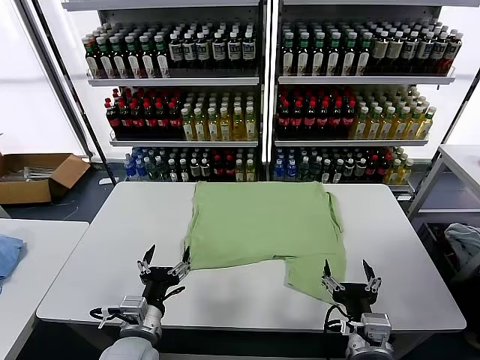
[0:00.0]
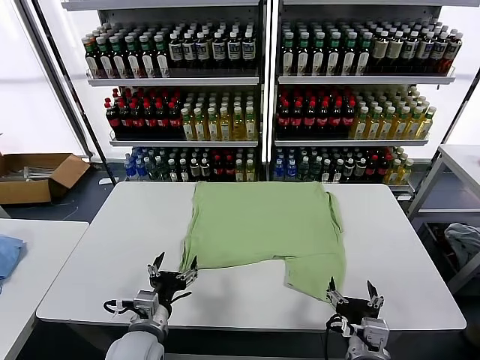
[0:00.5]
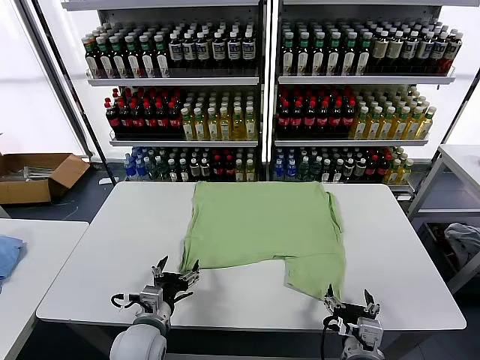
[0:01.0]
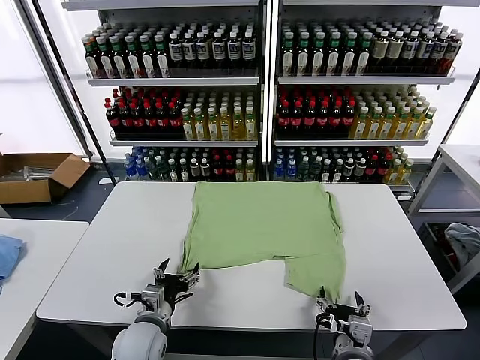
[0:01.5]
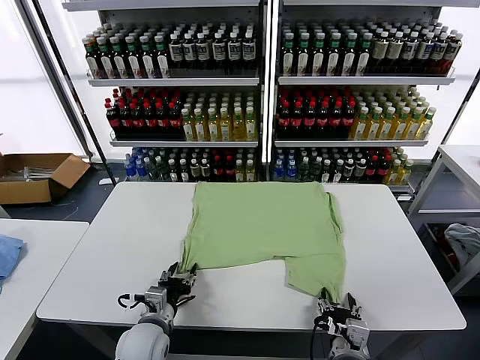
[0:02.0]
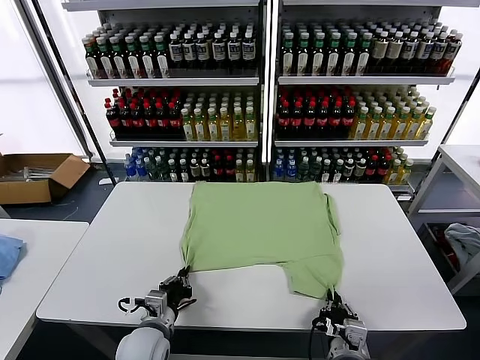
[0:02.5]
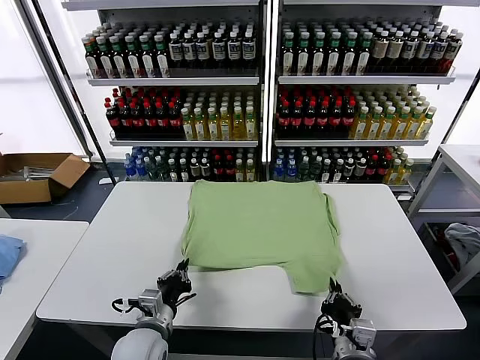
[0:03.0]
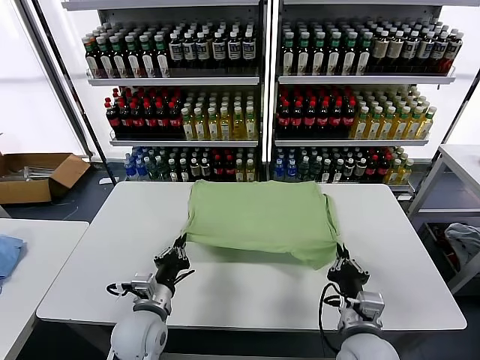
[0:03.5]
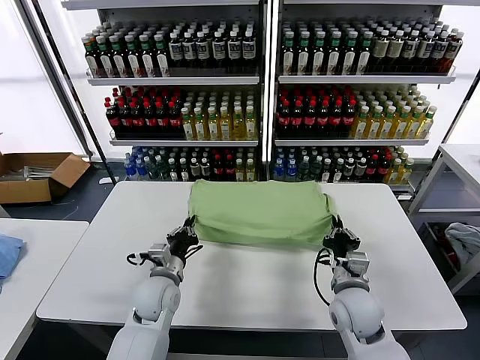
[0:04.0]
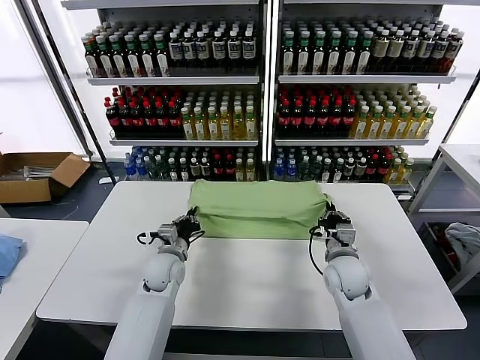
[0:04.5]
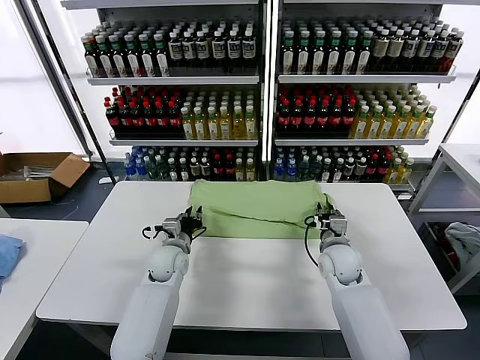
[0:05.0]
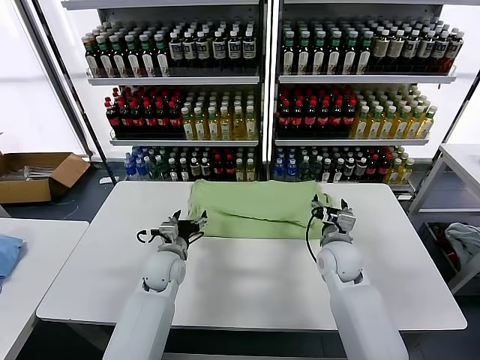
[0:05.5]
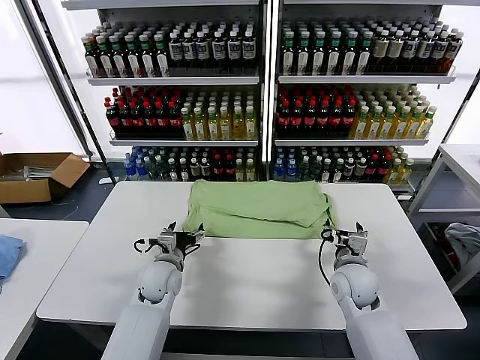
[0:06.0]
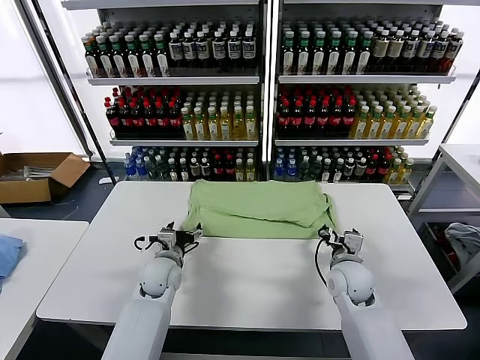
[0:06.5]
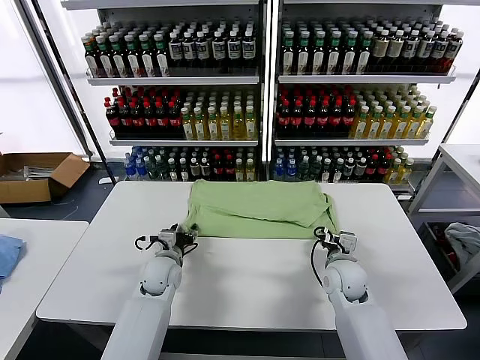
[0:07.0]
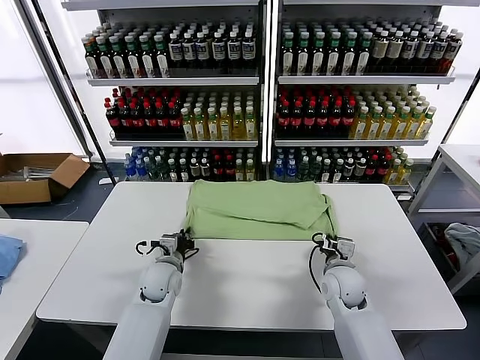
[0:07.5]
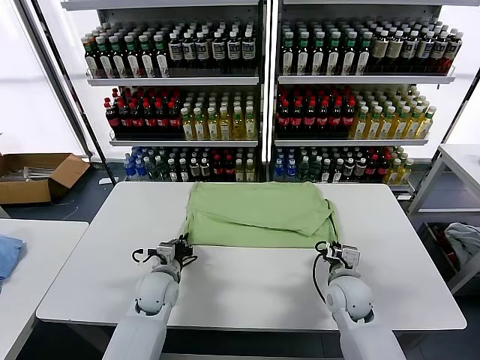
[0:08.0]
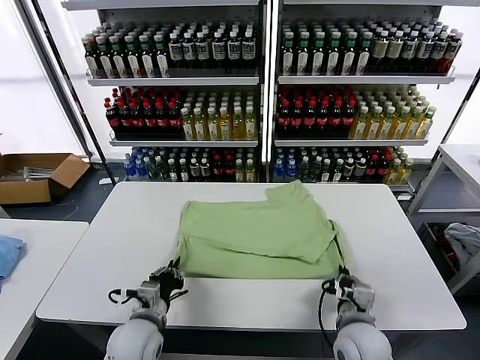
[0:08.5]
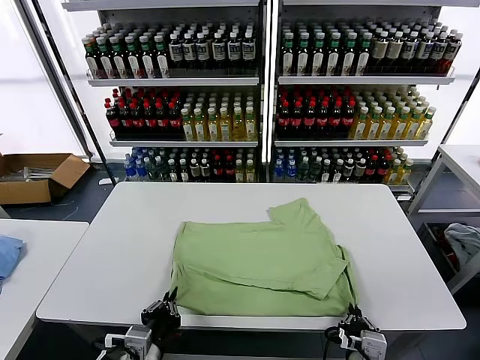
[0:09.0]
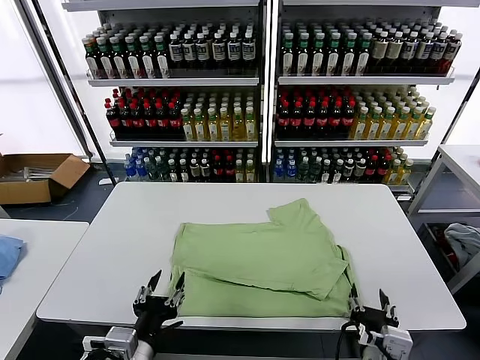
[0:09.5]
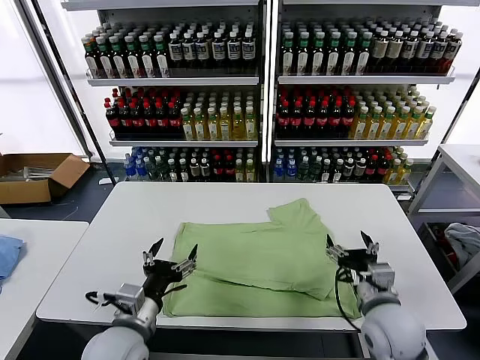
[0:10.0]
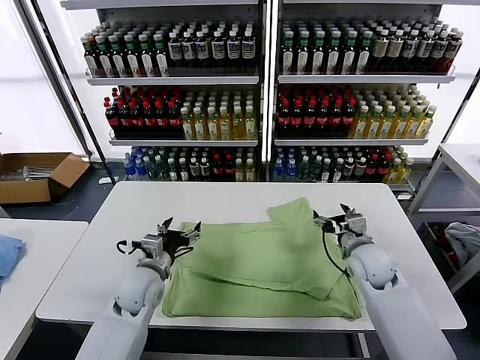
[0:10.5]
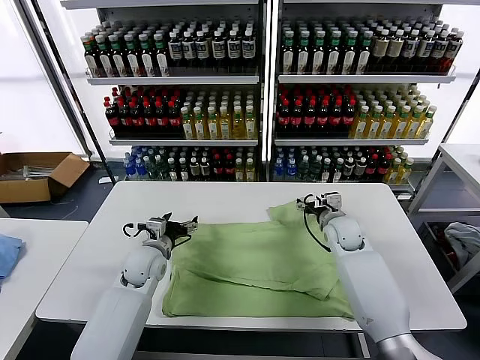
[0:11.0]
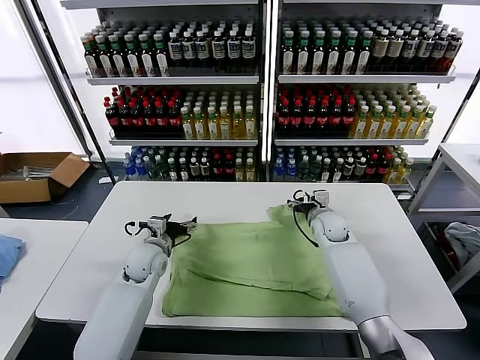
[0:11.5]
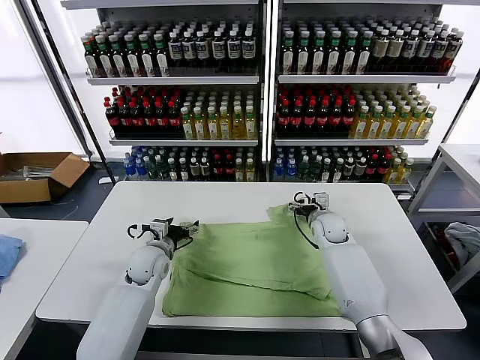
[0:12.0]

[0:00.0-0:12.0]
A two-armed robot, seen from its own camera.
Task of the whole recording: fold and organize the clothes.
Step, 0:00.0 to 0:02.5: use both grippers simultaneously to clamp the lower edge of the clothing fabric.
Step, 0:03.0 to 0:05.0: use both grippers to drag the lower edge of the fabric forward and fold it over the upper edge.
Step, 0:05.5 to 0:09.0: Drag the clothes downward with both gripper.
0:02.0 to 0:04.0: Both grippers move forward, approximately 15 cm. The right gripper closes, while the left gripper closes up.
0:04.0 to 0:06.0: The left gripper opens its fingers, while the right gripper travels forward and back again, about 10 cm each way, and opens up.
0:06.0 to 0:08.0: The left gripper closes up, while the right gripper moves backward, about 5 cm, and closes its fingers.
0:08.0 to 0:10.0: The left gripper is displaced backward and upward by about 15 cm, and opens up, while the right gripper shifts some 5 cm upward, moves about 20 cm backward and comes back, and opens up.
0:10.0 to 0:12.0: The grippers both shift forward by about 20 cm.

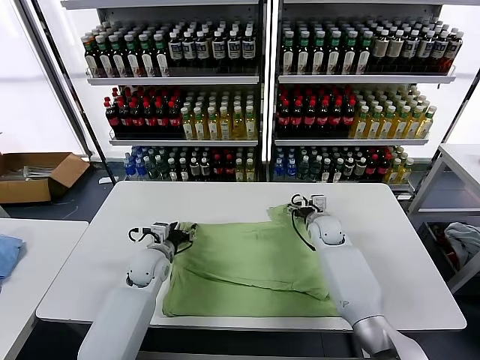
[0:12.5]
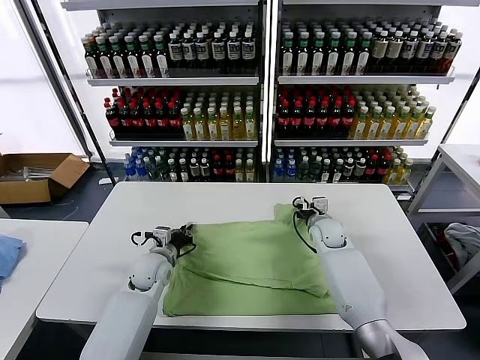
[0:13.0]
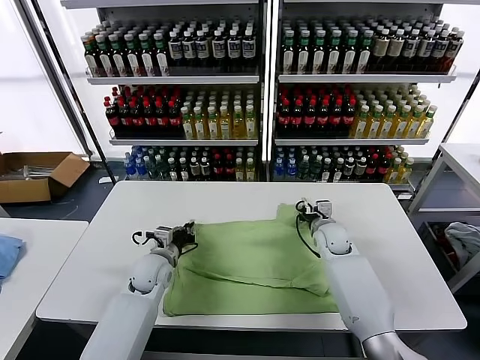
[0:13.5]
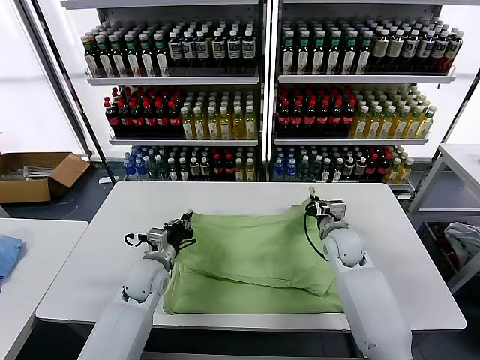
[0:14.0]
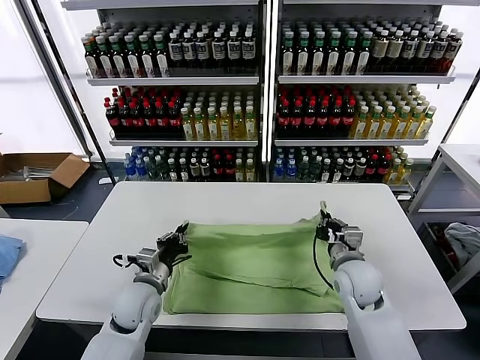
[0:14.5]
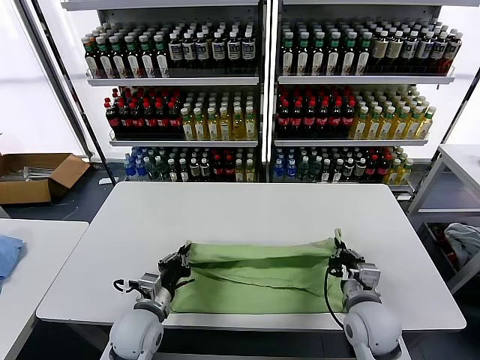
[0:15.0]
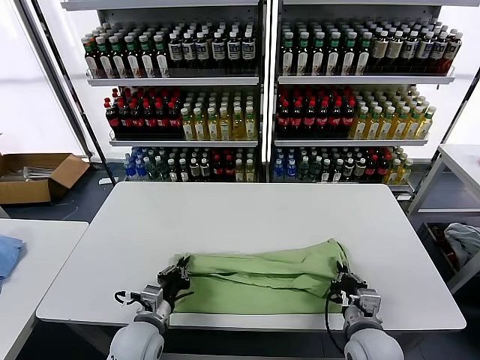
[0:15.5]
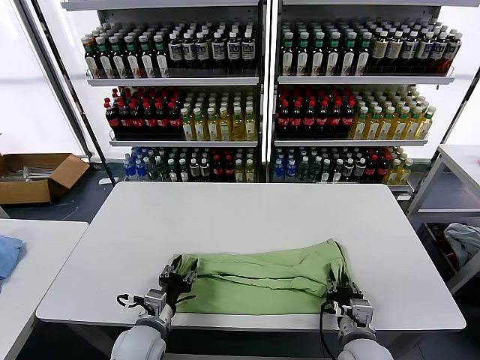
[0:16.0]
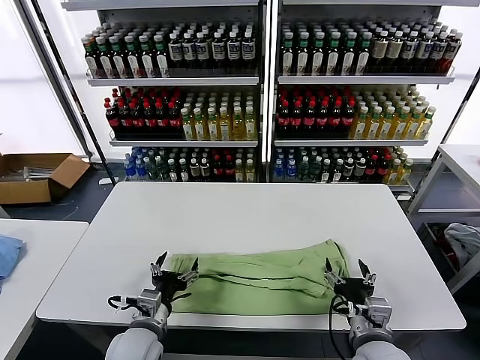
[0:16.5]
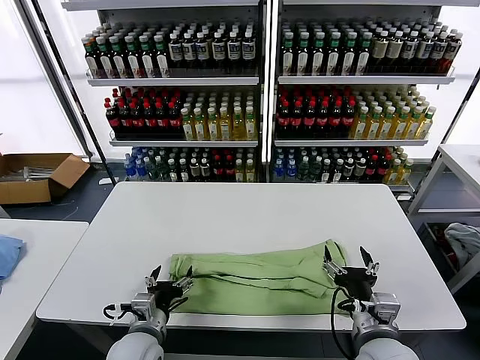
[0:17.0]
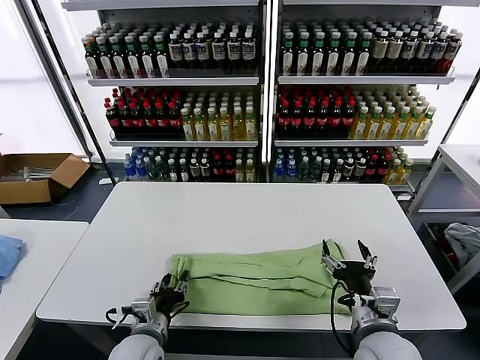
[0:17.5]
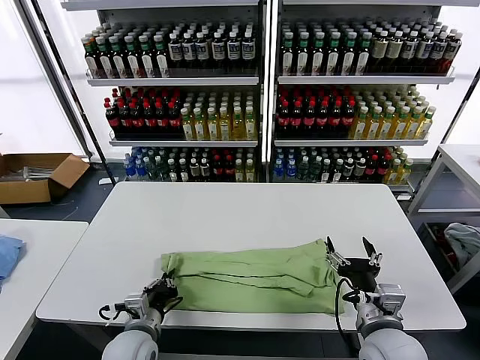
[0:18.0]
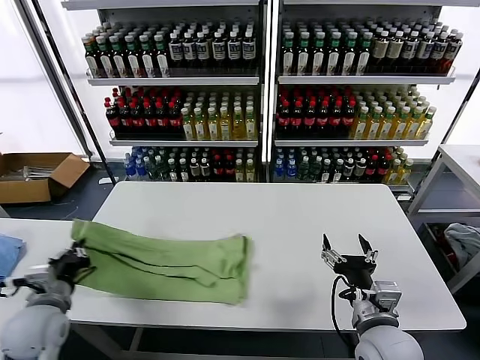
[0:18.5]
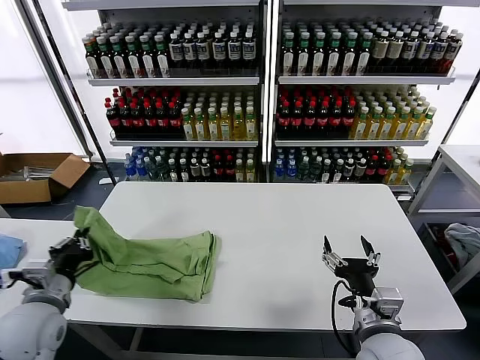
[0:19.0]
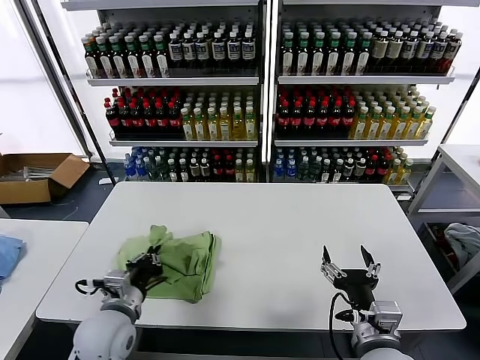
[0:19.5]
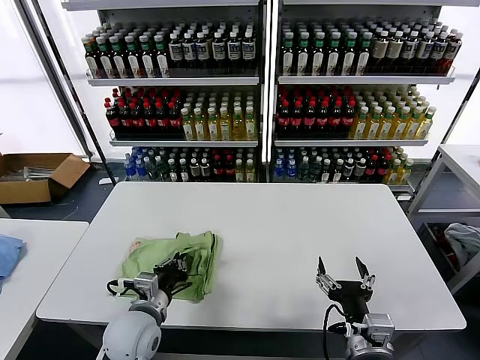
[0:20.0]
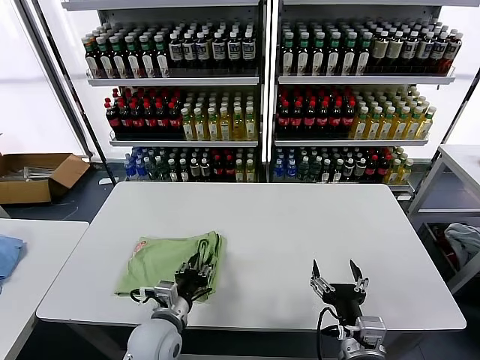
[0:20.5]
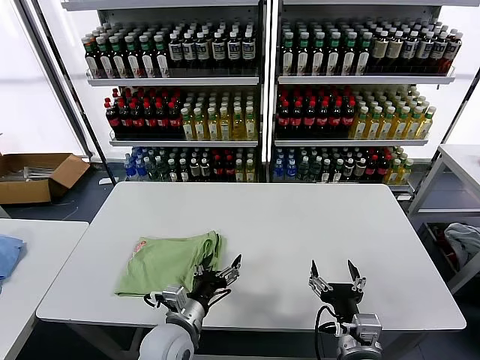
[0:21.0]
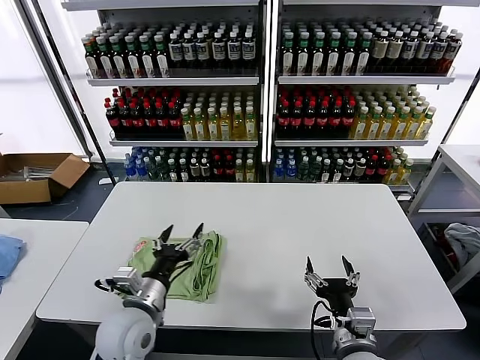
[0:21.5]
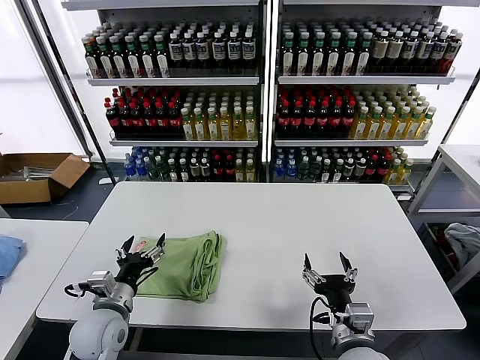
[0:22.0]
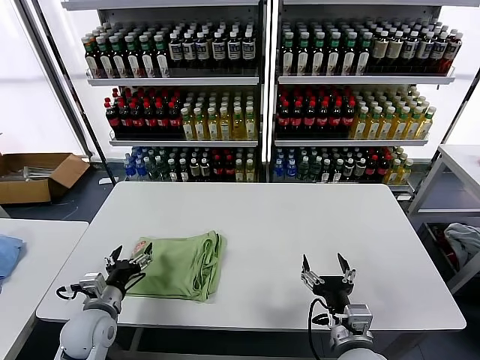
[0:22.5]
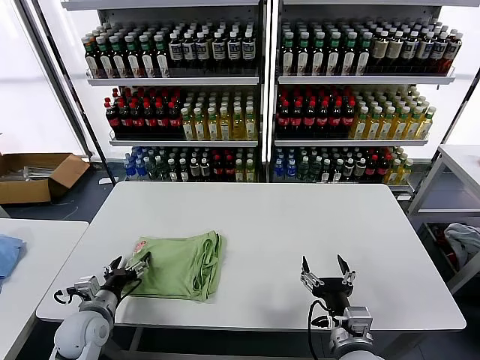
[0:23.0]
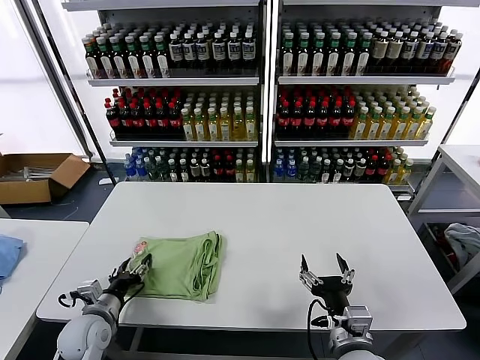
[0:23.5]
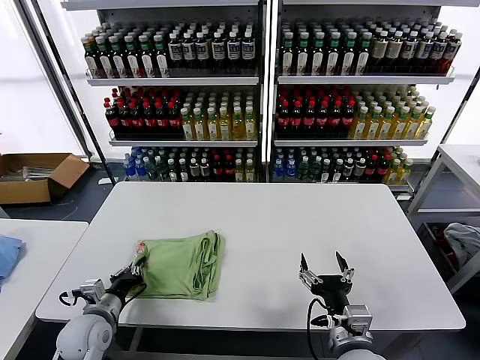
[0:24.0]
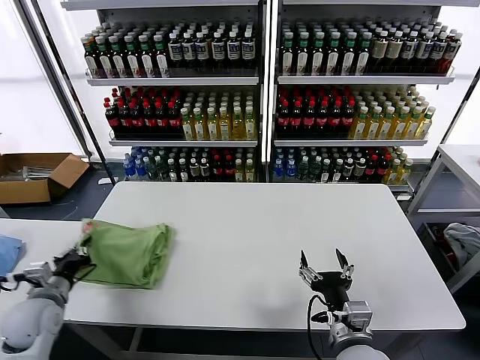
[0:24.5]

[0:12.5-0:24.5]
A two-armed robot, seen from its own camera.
Task of the whole recording: fold and organize the clothes.
Step, 0:13.5 to 0:16.5: use both grippers to drag the upper edge of the fabric backward and fold it over the lower edge.
Step, 0:17.0 to 0:17.5: use the left gripper to clamp the left edge of the fabric.
Step, 0:18.0 to 0:20.5: use the left gripper to drag the left edge of the fabric to the left and folds it over the right edge.
0:12.5 to 0:14.5: The right gripper is displaced backward by approximately 20 cm, and closes. Meanwhile the left gripper is displaced backward by about 10 cm, and closes its fingers.
0:14.5 to 0:16.5: The right gripper shifts roughly 15 cm backward, and opens. The left gripper travels backward by roughly 10 cm, and opens up.
0:16.5 to 0:18.5: The left gripper goes approximately 20 cm to the left and upward, and closes.
0:18.5 to 0:20.5: The right gripper goes some 5 cm backward; the left gripper shifts roughly 25 cm to the right, and opens its fingers.
0:20.5 to 0:22.5: The left gripper shifts approximately 15 cm to the left, and opens up.
0:22.5 to 0:24.5: The left gripper heads to the left, covering some 10 cm, and closes.

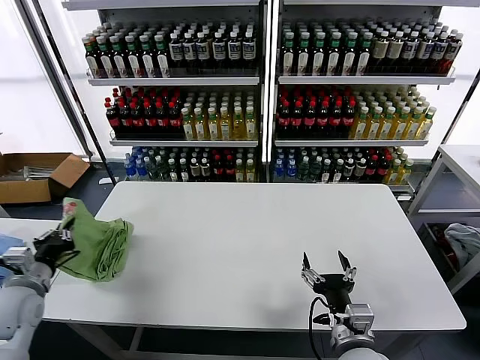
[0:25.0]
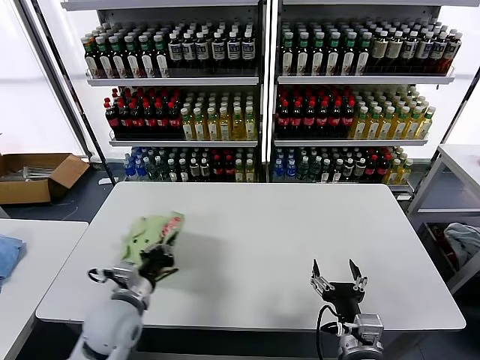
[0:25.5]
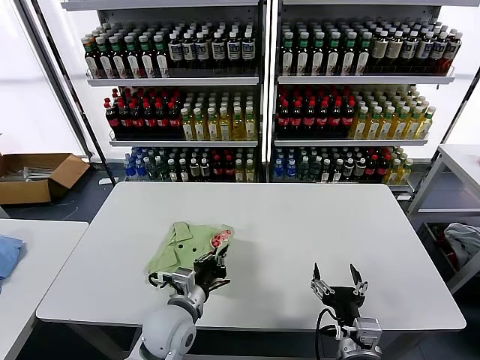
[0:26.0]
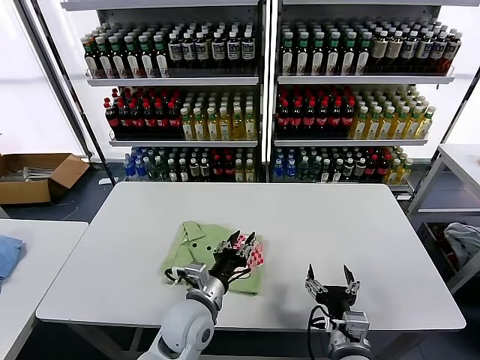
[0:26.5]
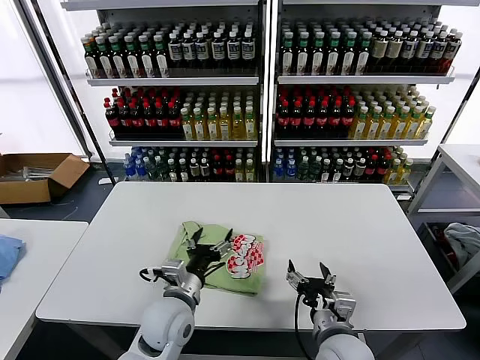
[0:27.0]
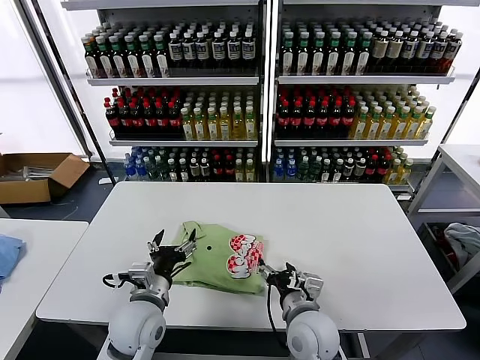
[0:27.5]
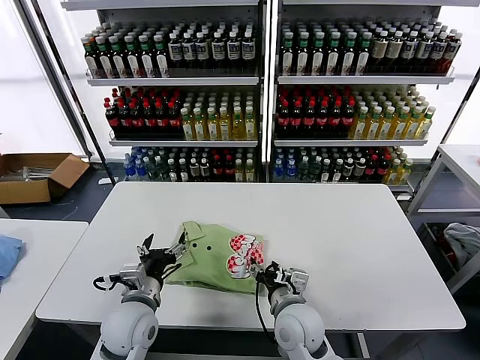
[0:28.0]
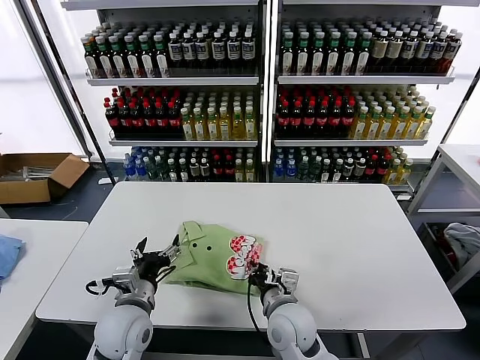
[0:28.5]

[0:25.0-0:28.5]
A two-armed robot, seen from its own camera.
Task of the whole recording: fold and organize the clothes.
0:25.0 to 0:27.0: The left gripper goes approximately 30 cm to the right, and opens its fingers.
0:27.0 to 0:28.5: The right gripper travels to the left and forward by approximately 10 cm, and closes its fingers. Meanwhile the left gripper is displaced to the left by approximately 10 cm.
